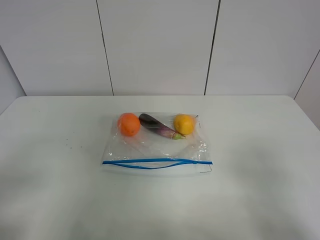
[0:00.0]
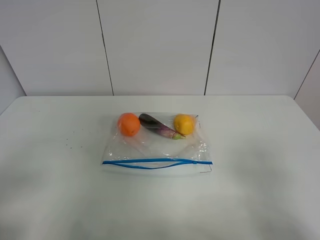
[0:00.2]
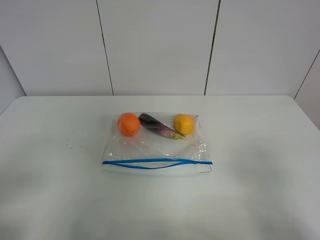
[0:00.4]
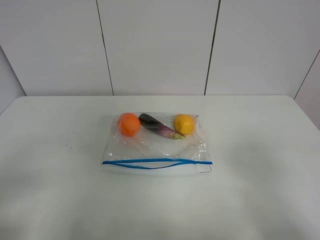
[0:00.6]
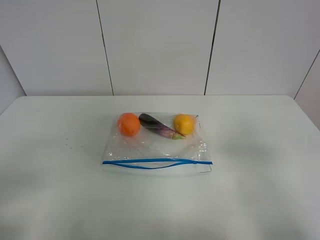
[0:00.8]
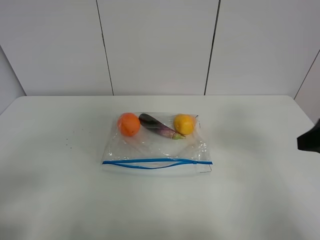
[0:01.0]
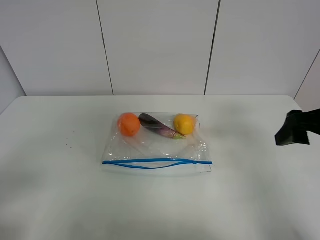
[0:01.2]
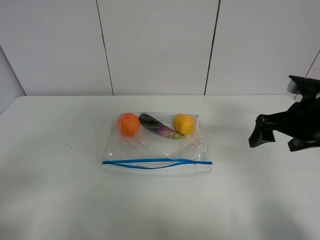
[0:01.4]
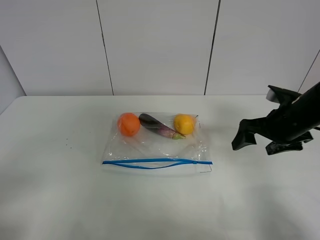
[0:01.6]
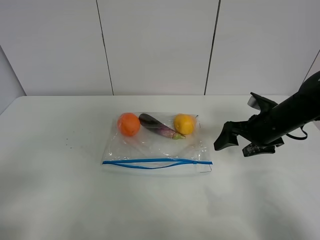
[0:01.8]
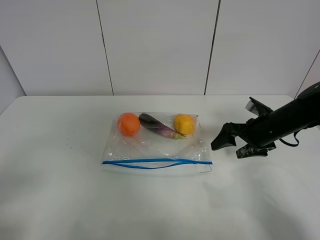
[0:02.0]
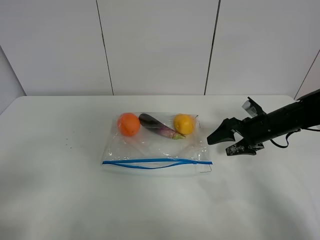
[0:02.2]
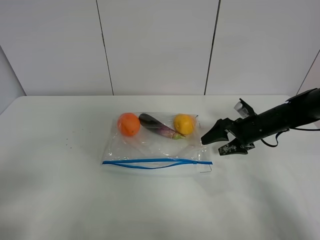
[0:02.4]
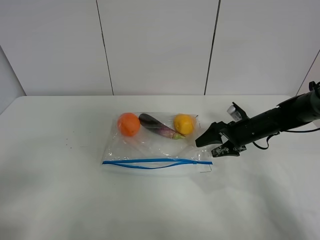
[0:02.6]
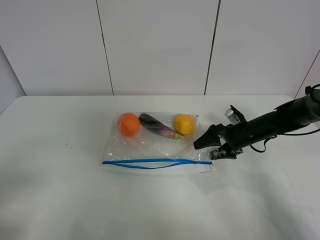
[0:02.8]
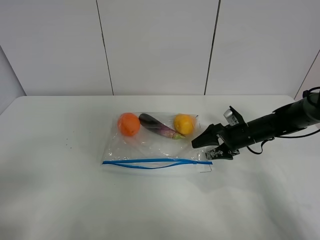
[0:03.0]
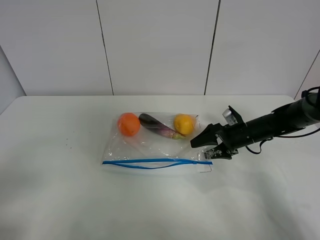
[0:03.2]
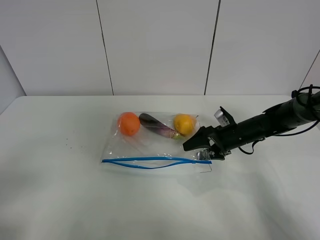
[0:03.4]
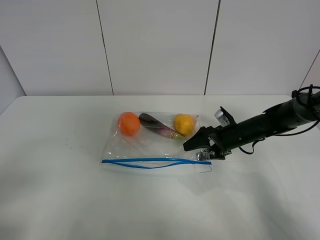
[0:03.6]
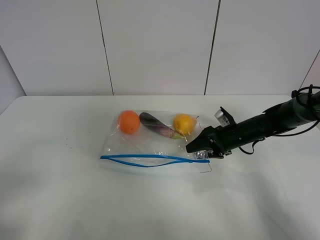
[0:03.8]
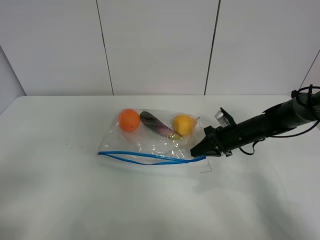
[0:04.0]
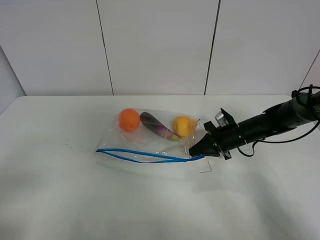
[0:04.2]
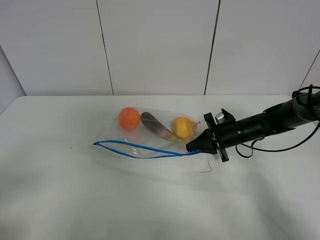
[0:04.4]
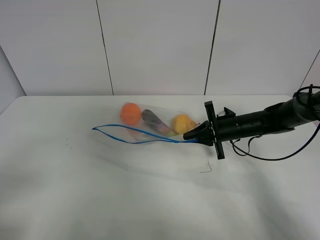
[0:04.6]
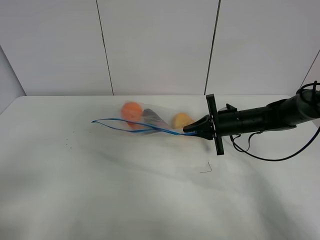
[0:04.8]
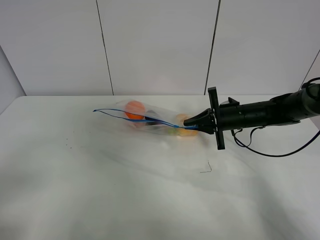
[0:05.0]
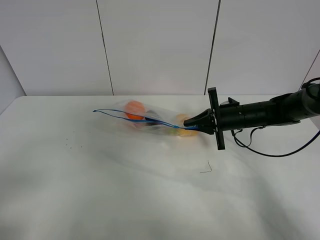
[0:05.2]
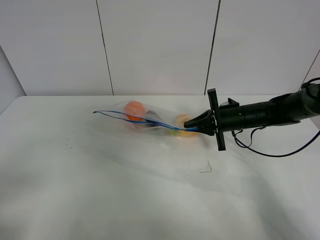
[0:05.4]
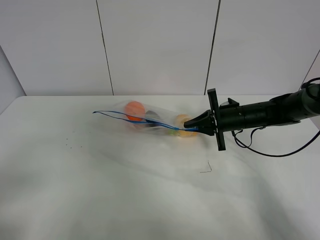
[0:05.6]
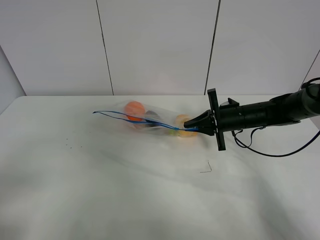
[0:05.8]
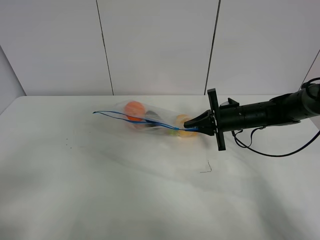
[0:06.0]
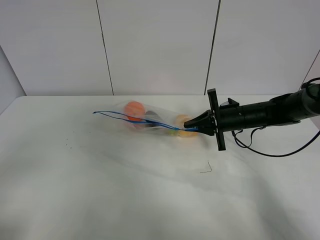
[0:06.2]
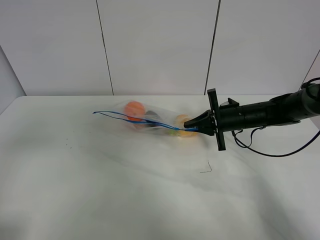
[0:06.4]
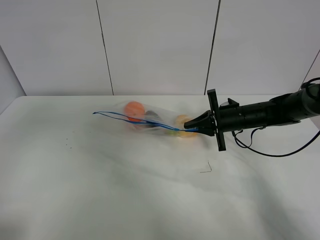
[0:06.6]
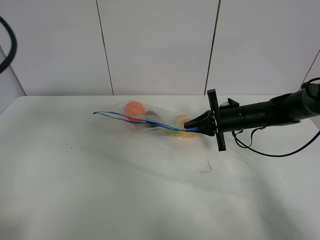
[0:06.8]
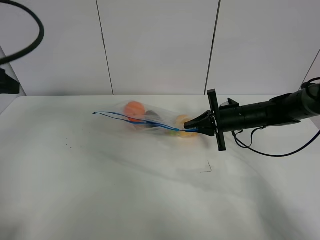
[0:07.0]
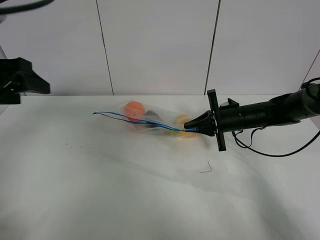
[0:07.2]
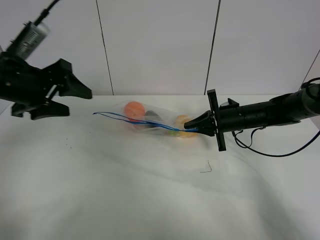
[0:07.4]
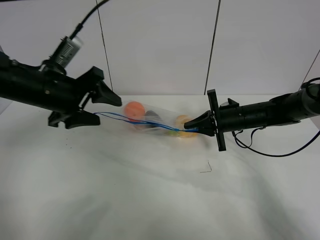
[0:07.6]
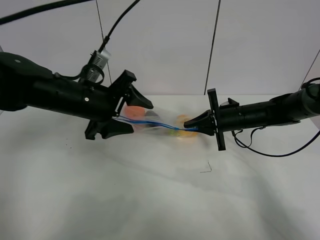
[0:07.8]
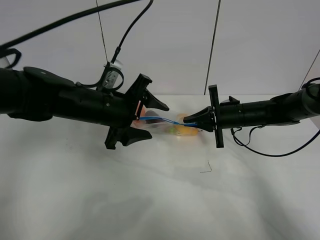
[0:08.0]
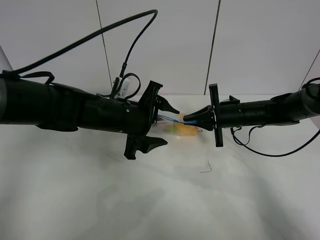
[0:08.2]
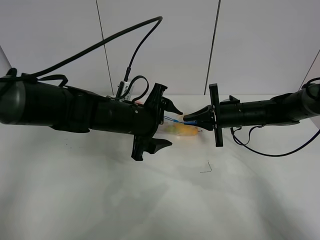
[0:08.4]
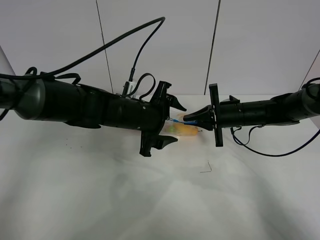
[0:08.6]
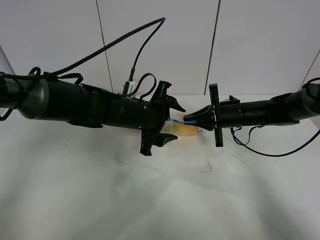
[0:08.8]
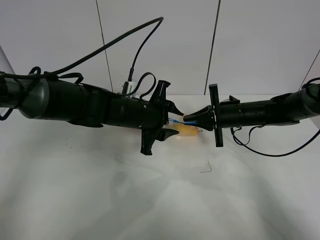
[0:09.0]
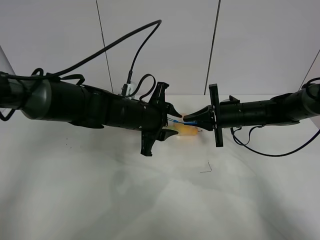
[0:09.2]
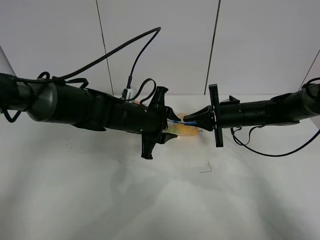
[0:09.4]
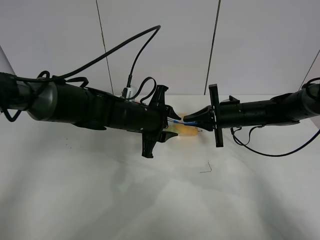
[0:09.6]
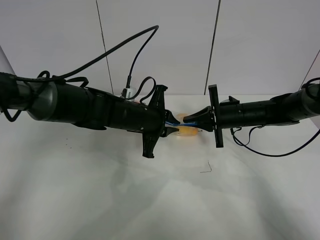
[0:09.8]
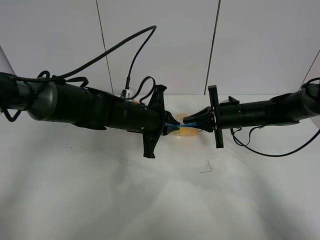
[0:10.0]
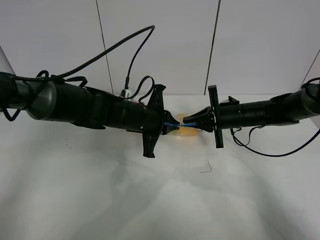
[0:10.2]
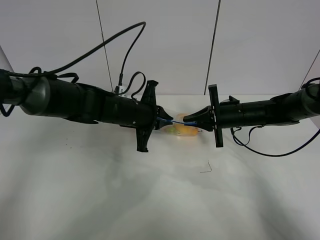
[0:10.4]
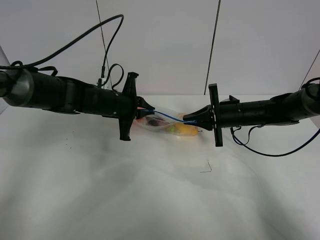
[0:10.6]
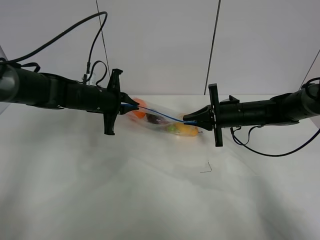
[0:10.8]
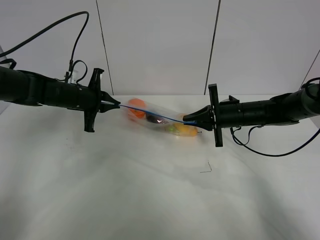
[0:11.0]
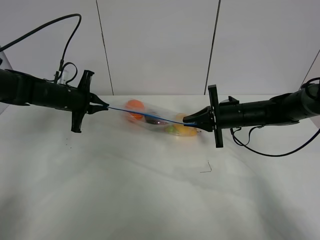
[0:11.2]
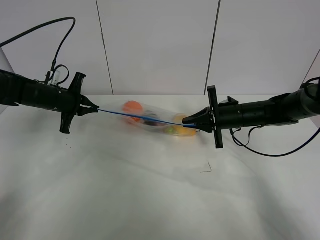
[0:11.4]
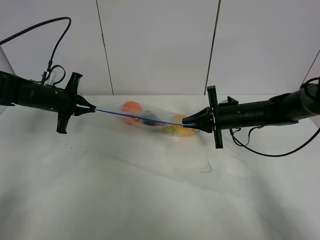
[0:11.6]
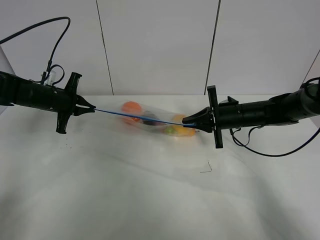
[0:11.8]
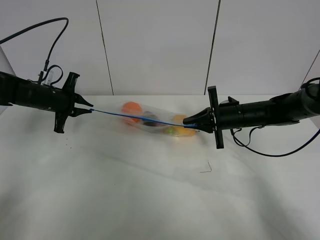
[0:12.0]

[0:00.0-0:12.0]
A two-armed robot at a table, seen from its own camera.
Step, 0:00.0 to 0:04.0: Grasp the fruit bag with right gripper.
Step, 0:04.2 to 0:05.2: Lift the fruit bag with your right gripper.
0:00.0 to 0:01.6: The right gripper travels forward by some 30 cm.
0:01.6 to 0:03.0: The right gripper travels downward and forward by some 15 cm.
0:03.0 to 0:04.4: The right gripper closes its fingers.
0:04.4 to 0:06.0: The grippers move only a little.
0:06.0 to 0:07.6: The left gripper shifts roughly 30 cm forward and to the right.
0:07.6 to 0:09.0: The left gripper goes roughly 15 cm to the right and downward, and closes.
0:09.0 to 0:10.4: The left gripper closes up.
0:10.4 to 0:12.0: The left gripper shifts roughly 20 cm to the left.

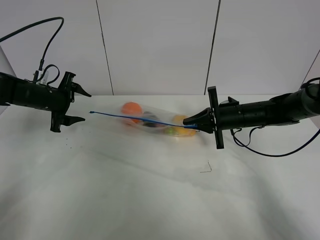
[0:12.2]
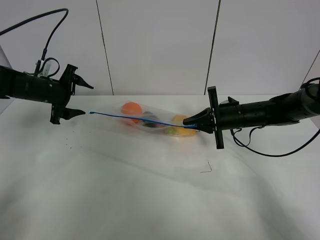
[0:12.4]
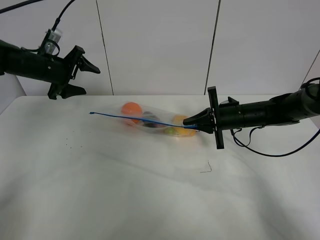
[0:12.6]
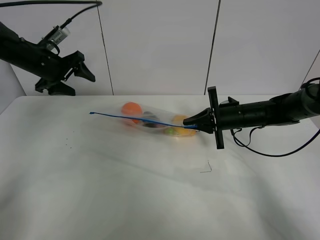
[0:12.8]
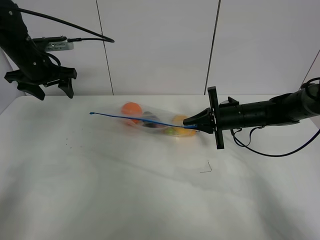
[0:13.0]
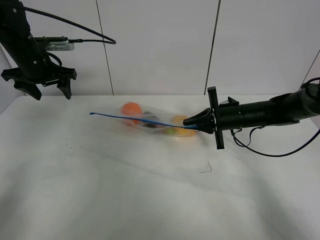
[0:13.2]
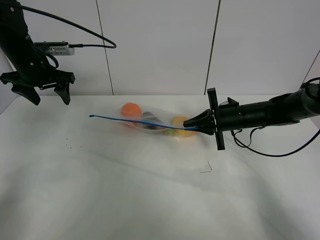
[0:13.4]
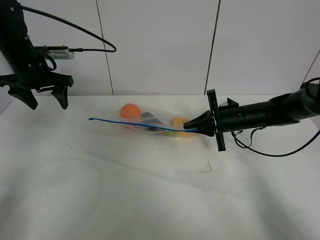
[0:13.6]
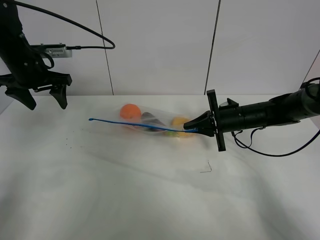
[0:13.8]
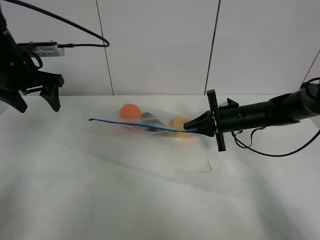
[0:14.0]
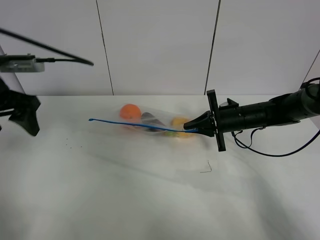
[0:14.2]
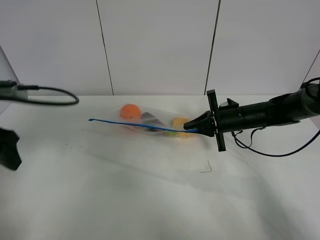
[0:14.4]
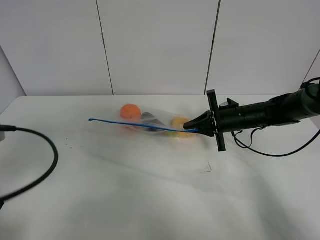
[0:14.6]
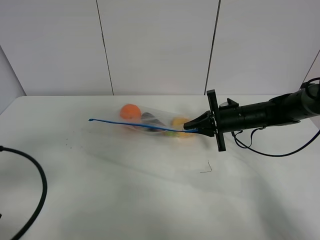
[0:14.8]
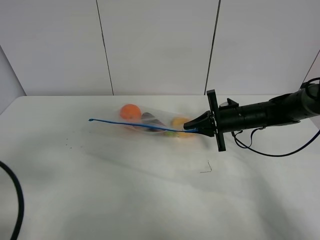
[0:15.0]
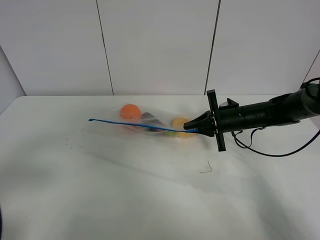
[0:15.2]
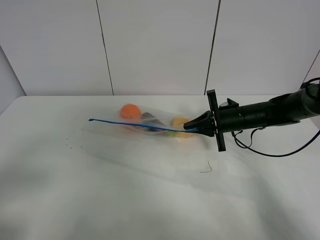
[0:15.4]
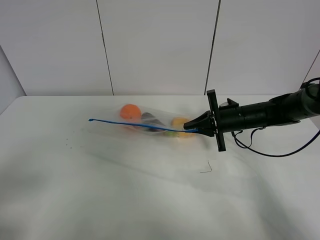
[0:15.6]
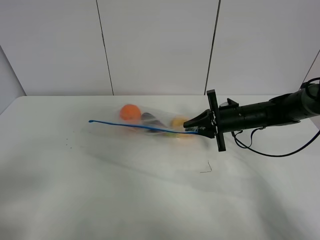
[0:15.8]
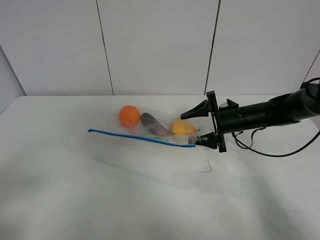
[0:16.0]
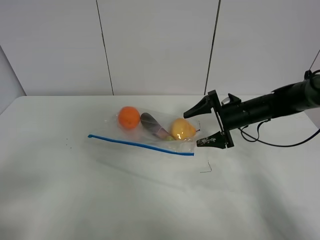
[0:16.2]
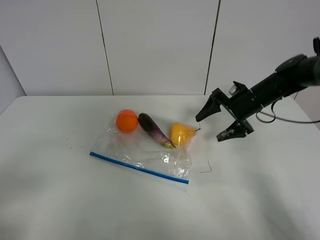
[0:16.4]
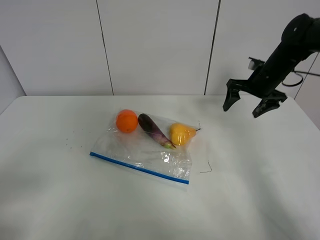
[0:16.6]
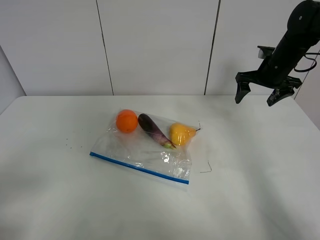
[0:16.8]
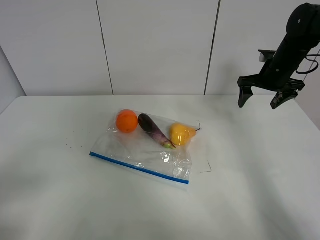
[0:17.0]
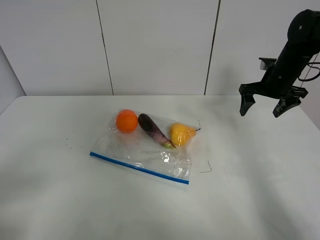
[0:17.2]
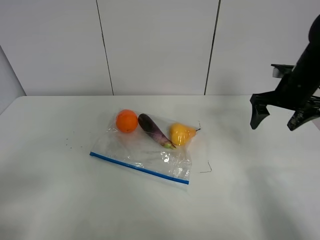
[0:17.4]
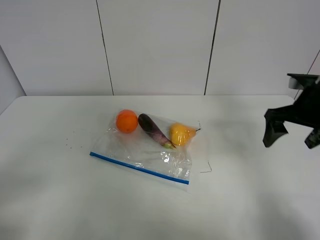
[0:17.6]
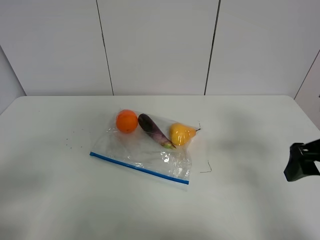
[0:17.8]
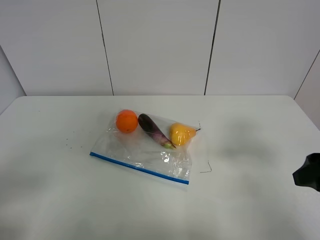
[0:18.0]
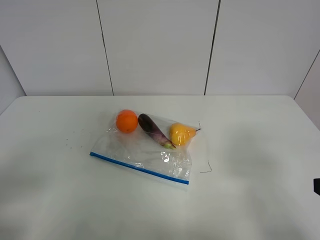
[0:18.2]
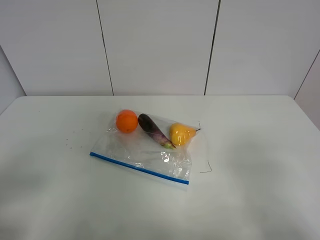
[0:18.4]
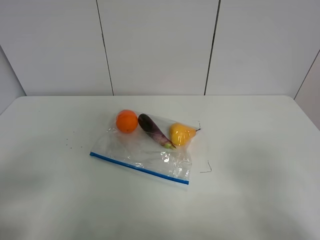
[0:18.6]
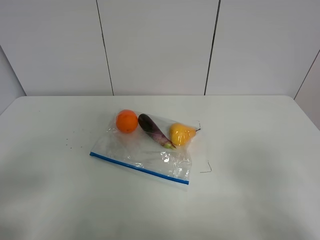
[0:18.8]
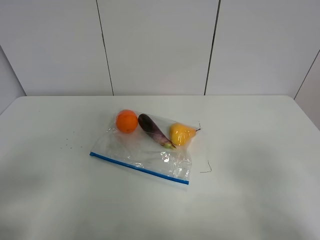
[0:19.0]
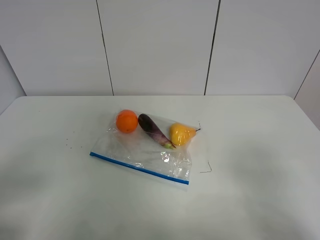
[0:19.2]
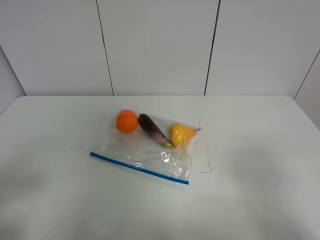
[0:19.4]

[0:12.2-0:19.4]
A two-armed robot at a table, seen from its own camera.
0:12.2 to 0:13.6: The left gripper moves upward, roughly 10 cm.
0:13.6 to 0:15.0: The left gripper heads backward, covering about 35 cm.
0:15.0 to 0:16.6: The left gripper shifts about 5 cm backward; the right gripper goes some 15 cm upward, to the right and forward, and opens its fingers.
0:16.6 to 0:18.0: The right gripper heads backward, covering some 30 cm.
0:18.0 to 0:19.4: The right gripper shifts roughly 10 cm backward.

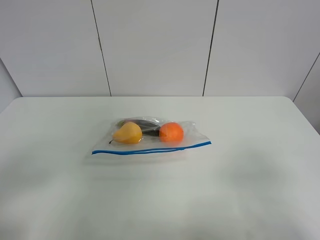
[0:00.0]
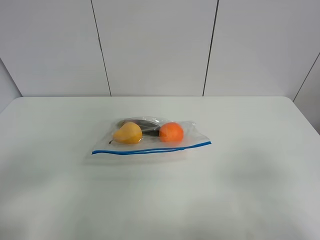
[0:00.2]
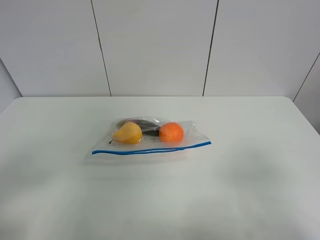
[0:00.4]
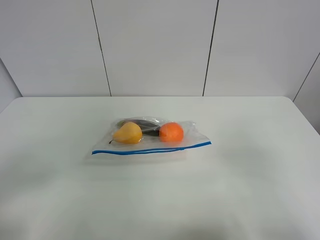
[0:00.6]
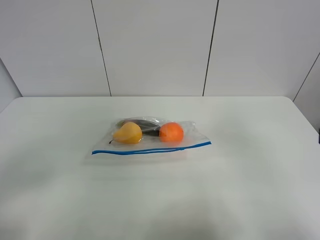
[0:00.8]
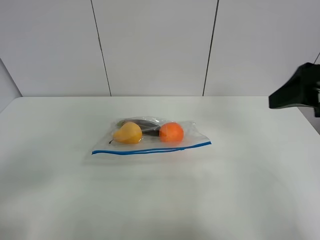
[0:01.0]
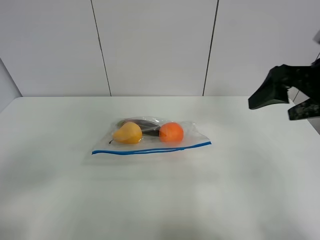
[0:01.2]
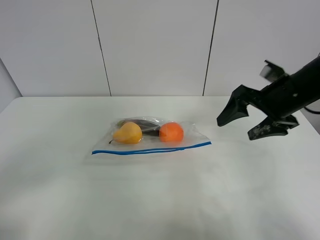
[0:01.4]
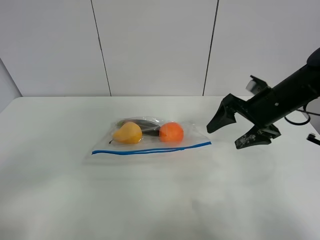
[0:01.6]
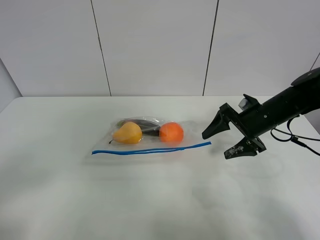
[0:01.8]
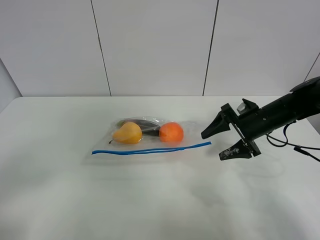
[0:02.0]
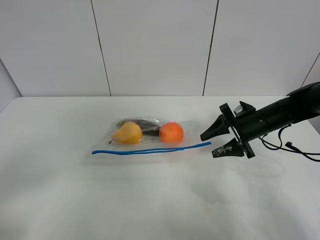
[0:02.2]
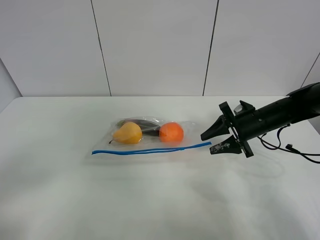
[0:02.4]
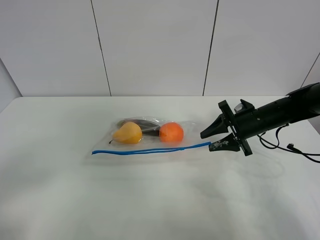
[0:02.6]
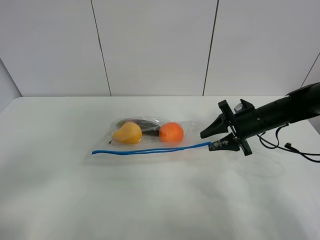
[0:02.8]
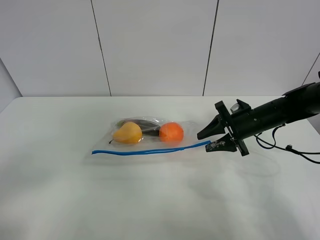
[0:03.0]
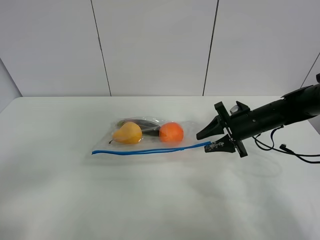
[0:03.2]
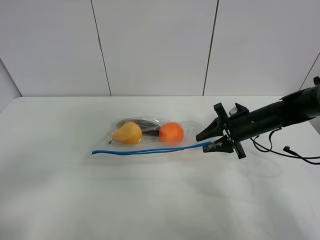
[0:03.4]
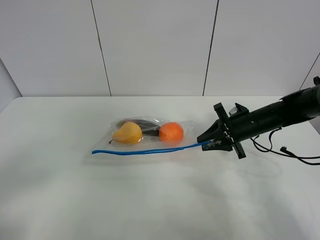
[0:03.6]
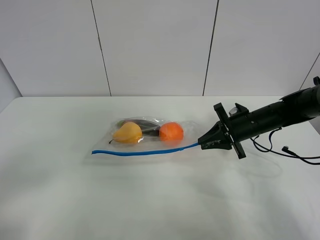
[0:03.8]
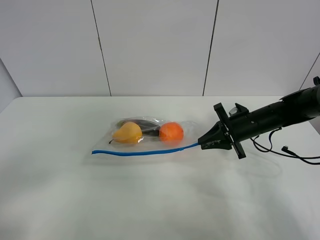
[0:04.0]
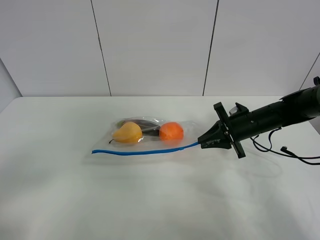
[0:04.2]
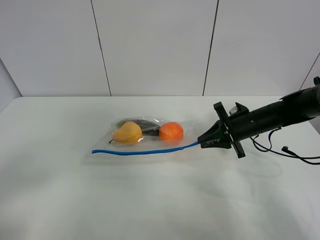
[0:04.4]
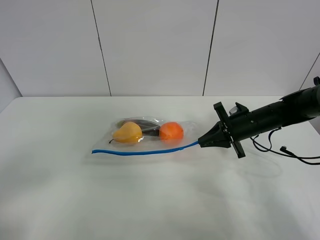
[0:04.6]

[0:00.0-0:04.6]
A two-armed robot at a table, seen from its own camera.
0:00.0 to 0:01.6: The right gripper goes about 30 cm forward.
0:01.6 to 0:03.0: The right gripper moves downward, roughly 10 cm, and closes its fingers.
0:03.0 to 0:04.6: The right gripper closes its fingers.
